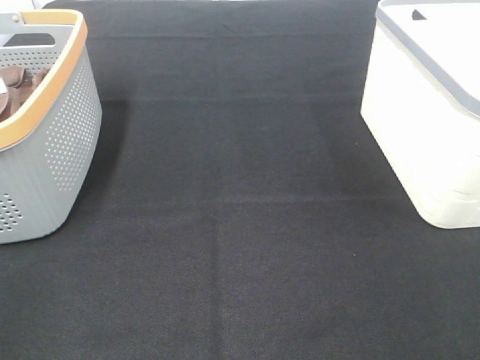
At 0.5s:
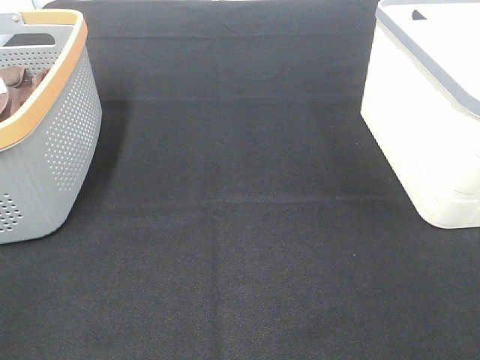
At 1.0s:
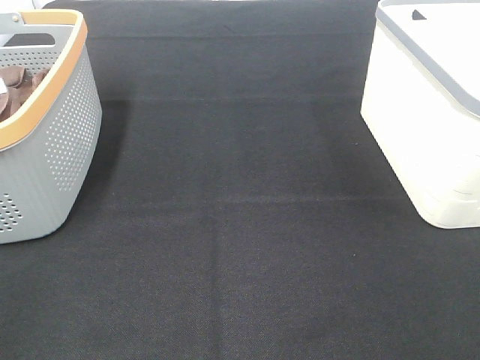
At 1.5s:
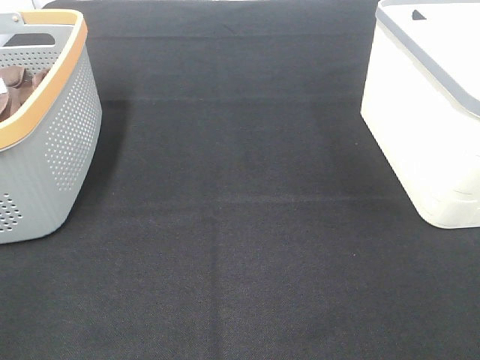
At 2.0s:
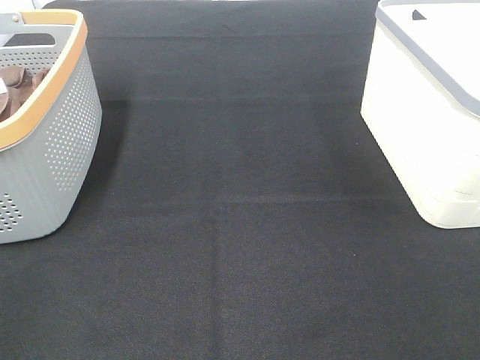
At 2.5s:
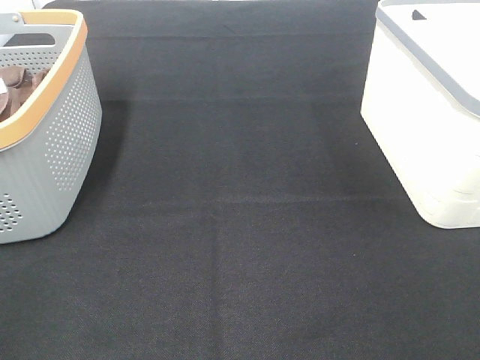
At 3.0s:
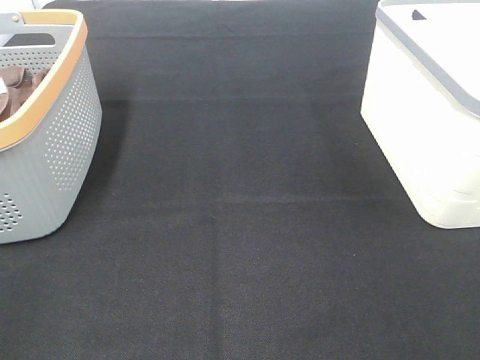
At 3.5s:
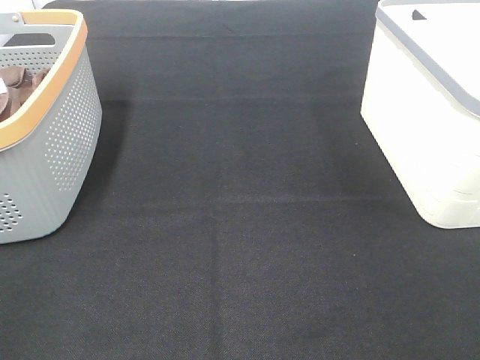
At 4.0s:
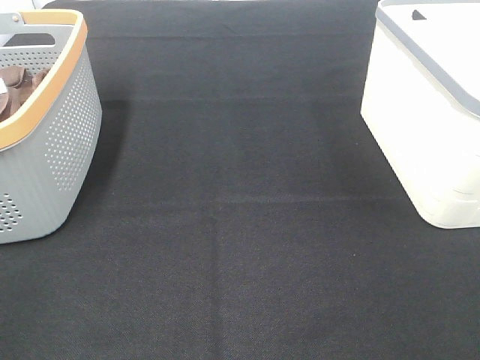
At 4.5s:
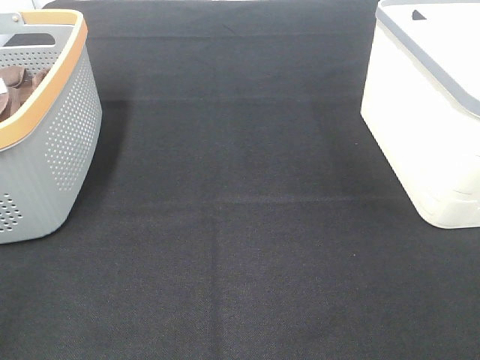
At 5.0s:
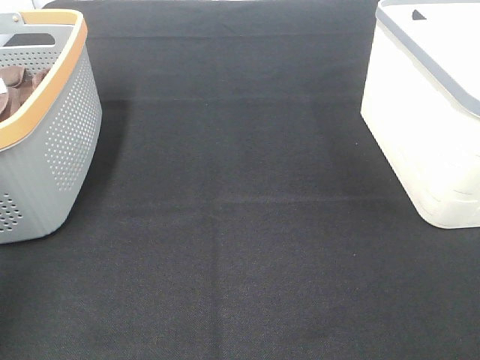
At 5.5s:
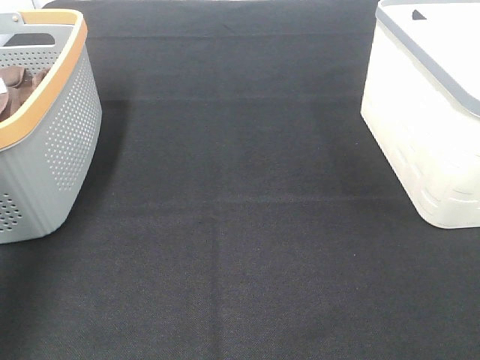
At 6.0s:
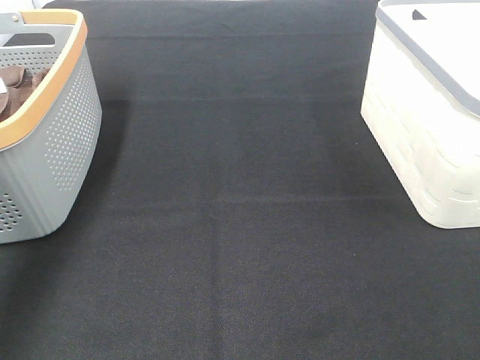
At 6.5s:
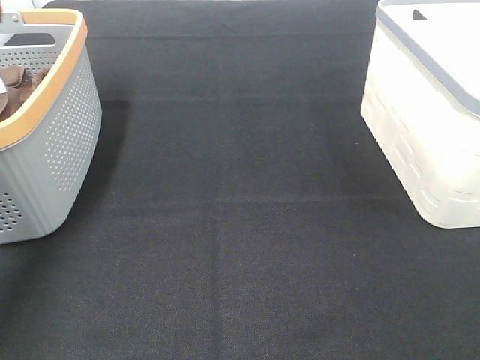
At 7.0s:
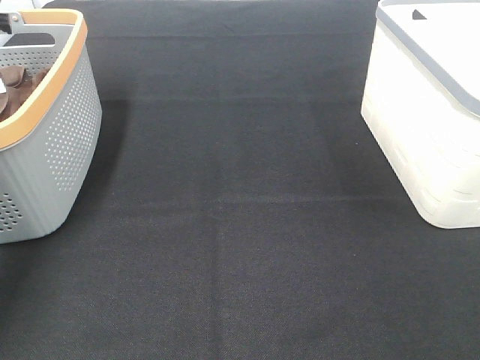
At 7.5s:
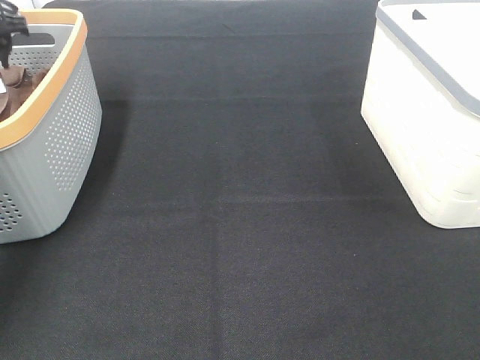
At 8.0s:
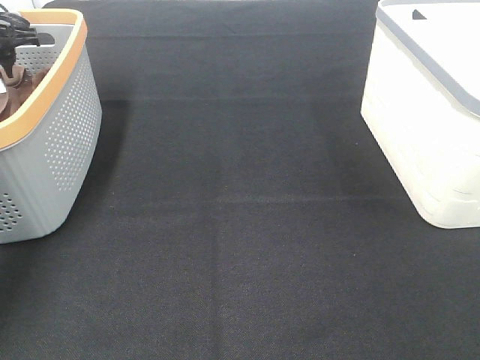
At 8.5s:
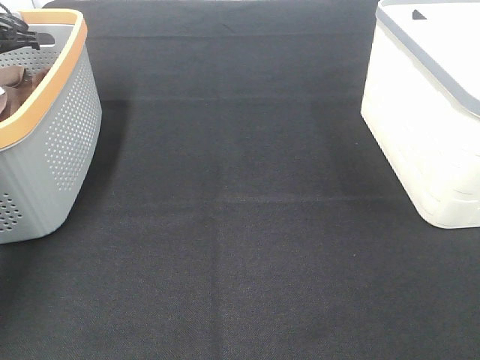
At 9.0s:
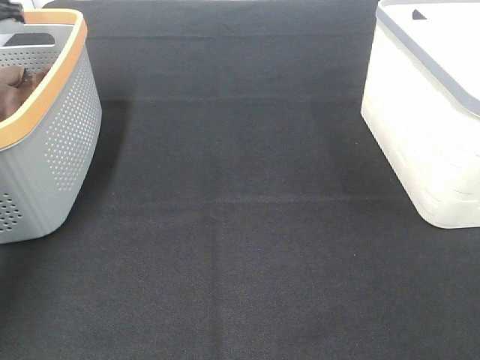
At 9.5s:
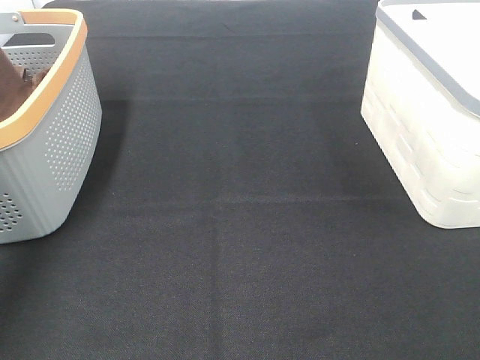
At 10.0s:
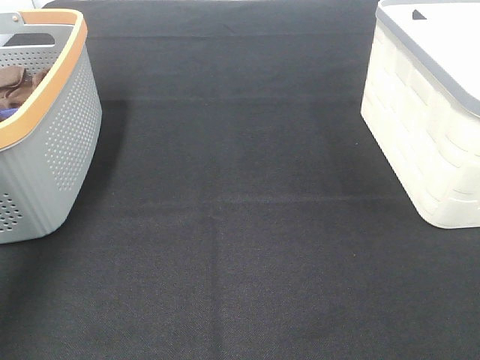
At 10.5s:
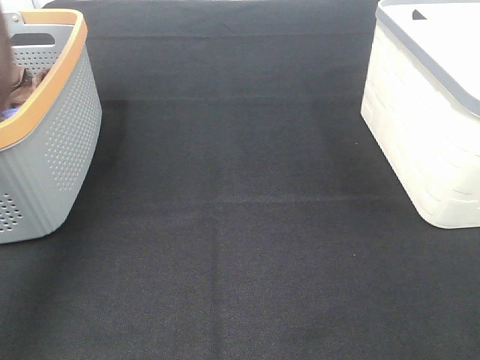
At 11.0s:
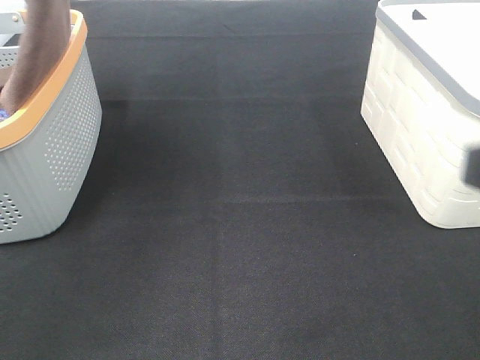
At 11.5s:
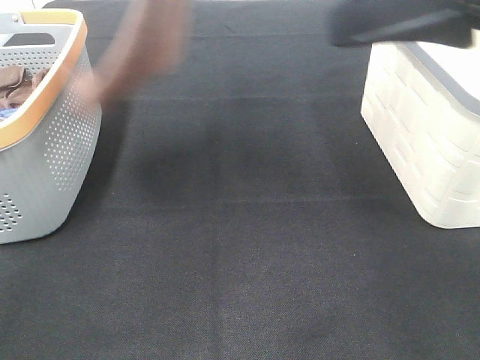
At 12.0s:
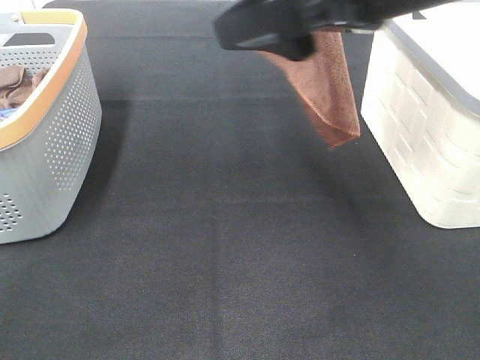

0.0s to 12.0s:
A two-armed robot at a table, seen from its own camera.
Task of the whole recording: Remove the towel and place it.
0.0s to 4.0s: The two grippers keep their place.
4.0s to 6.0s: The left gripper is displaced forward by roughly 35 cm.
6.0s to 8.0s: The left gripper is displaced forward and downward by approximately 20 cm.
8.0s to 10.0s: The left gripper is displaced upward and backward by some 30 cm, and closes.
10.0s to 12.0s: The right gripper moves forward and to the left, some 30 cm. The left gripper shifts some 25 cm to the right.

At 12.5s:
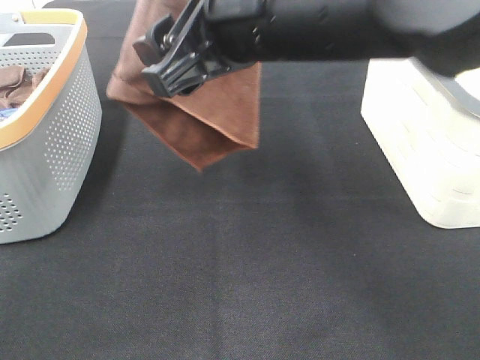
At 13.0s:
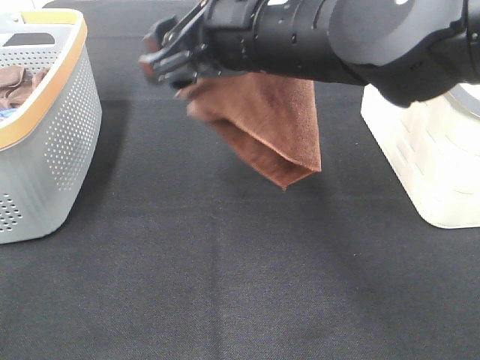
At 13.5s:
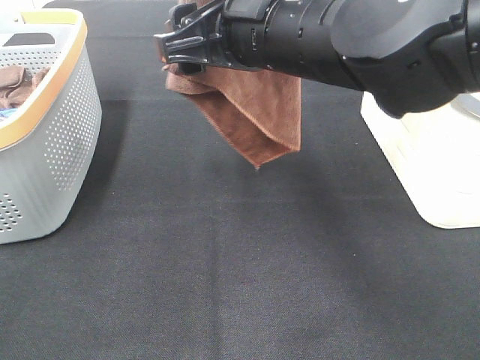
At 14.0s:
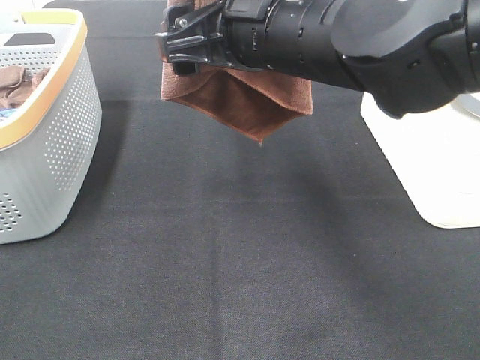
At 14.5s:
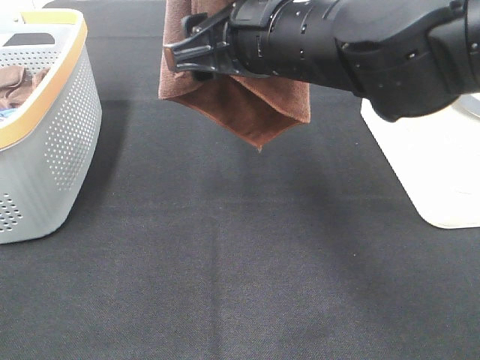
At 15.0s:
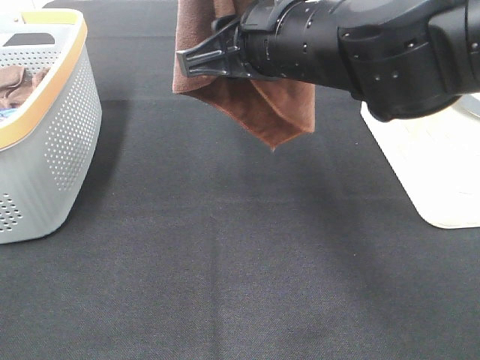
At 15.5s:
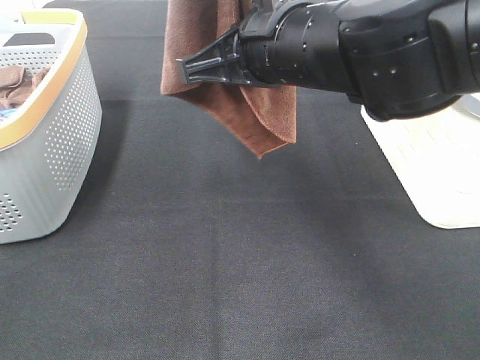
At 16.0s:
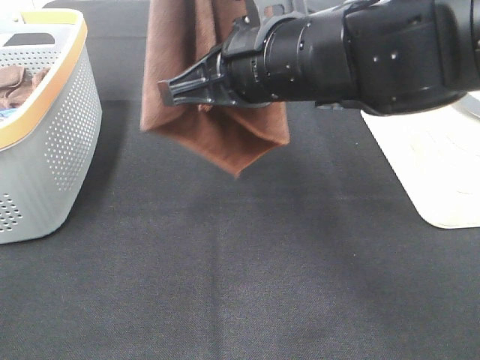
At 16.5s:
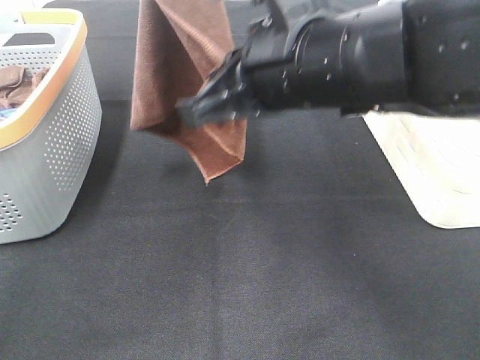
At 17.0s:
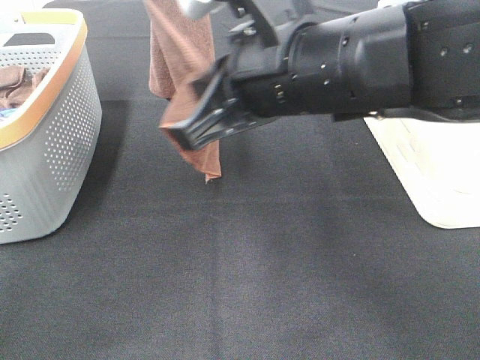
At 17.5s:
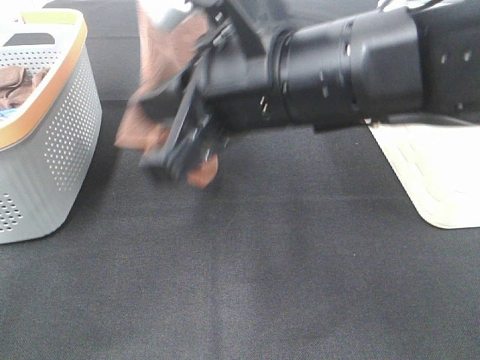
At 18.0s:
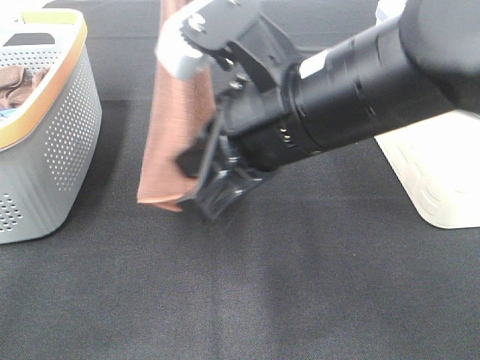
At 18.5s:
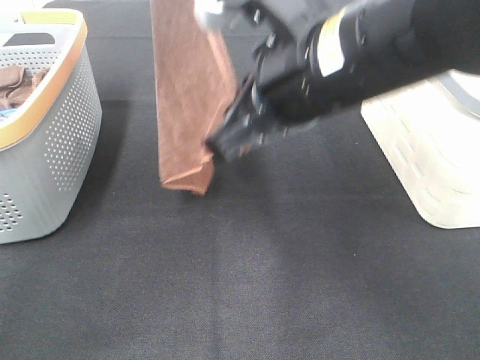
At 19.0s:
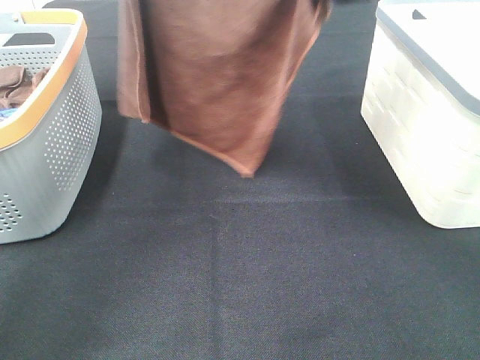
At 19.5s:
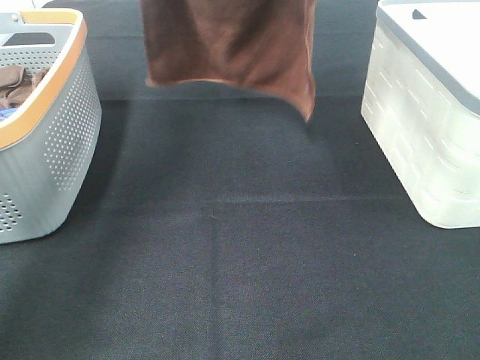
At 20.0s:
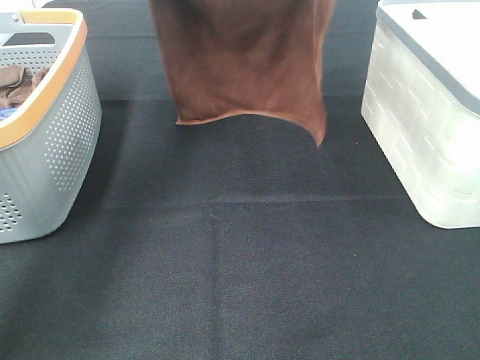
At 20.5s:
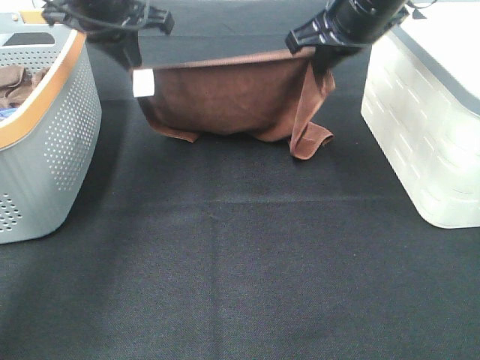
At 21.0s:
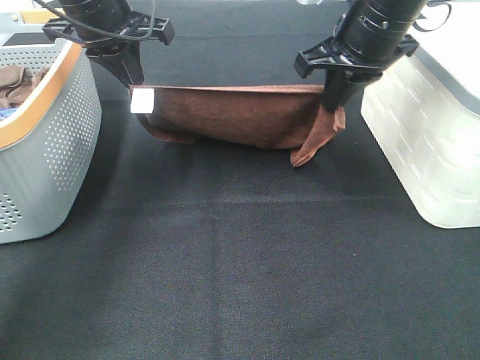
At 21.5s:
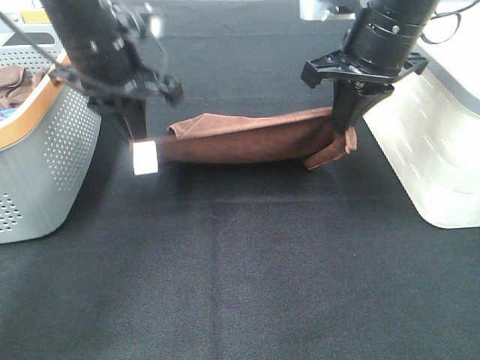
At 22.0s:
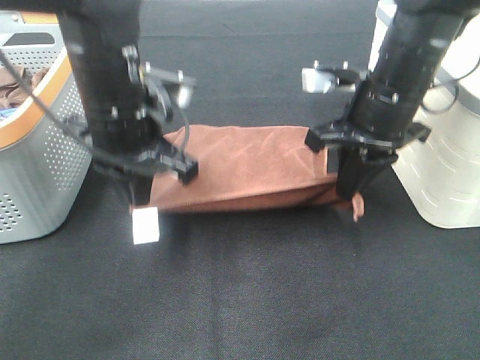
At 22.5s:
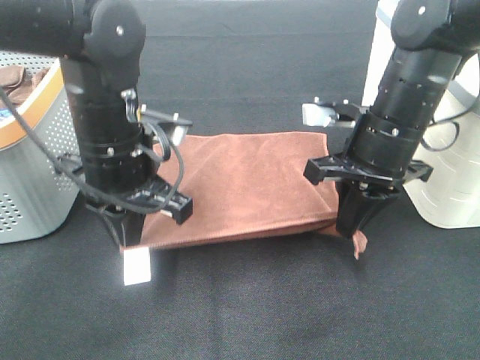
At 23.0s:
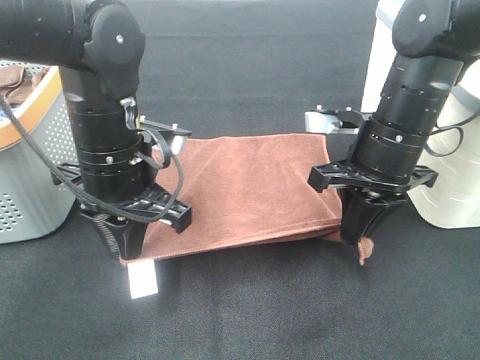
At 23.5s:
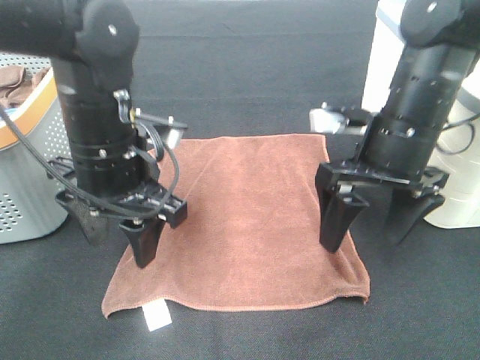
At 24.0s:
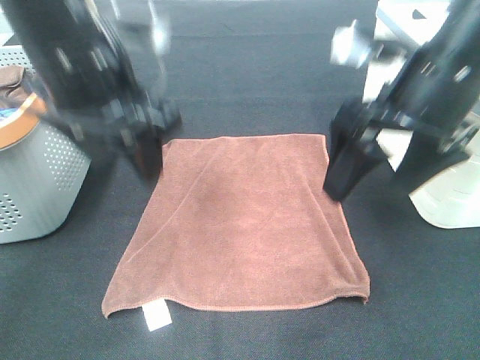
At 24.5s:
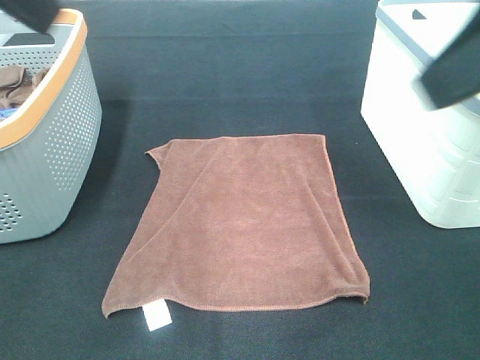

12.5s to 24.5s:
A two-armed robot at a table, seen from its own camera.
Task of the whole recording: Remove the towel and place it.
Step, 12.5s to 15.5s: Right hand: grab a corner of the brown towel and straighten it.
Step, 16.0s to 18.5s: Left hand: spread the brown towel flat on the table.
Step, 16.0s to 18.5s: Right hand: spread the brown towel flat on the table.
12.5s to 14.5s: The left gripper shifts by some 5 cm.
14.5s to 16.5s: The left gripper goes approximately 10 cm forward and downward, while the right gripper closes.
18.5s to 20.5s: The left gripper is displaced downward and forward by roughly 20 cm, while the right gripper heads forward and to the right, covering roughly 20 cm.
20.5s to 22.5s: The left gripper shifts approximately 20 cm backward and downward, while the right gripper is displaced downward and backward by roughly 15 cm.
22.5s to 24.5s: The right gripper moves upward and backward, some 25 cm, and opens up; the left gripper is displaced upward by some 25 cm, and opens.
